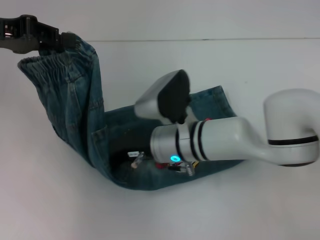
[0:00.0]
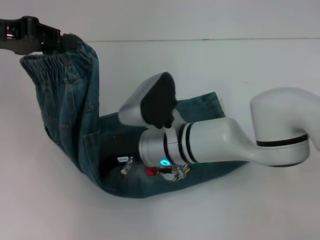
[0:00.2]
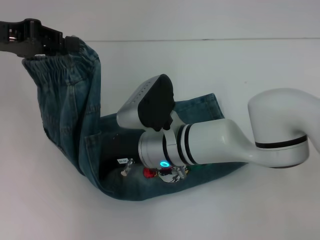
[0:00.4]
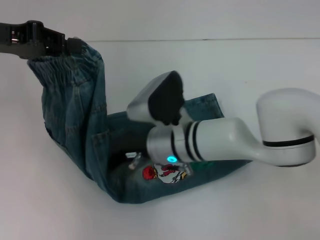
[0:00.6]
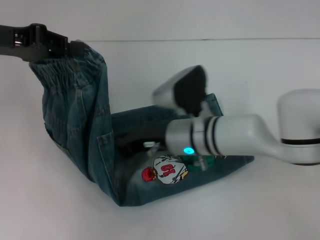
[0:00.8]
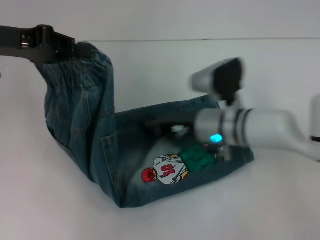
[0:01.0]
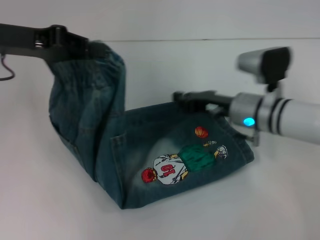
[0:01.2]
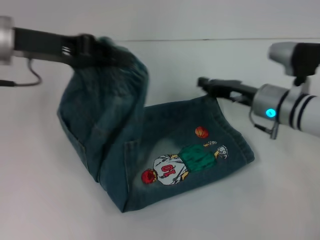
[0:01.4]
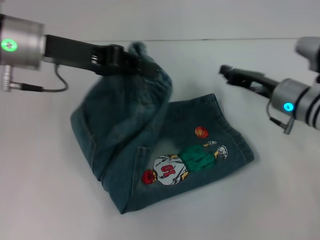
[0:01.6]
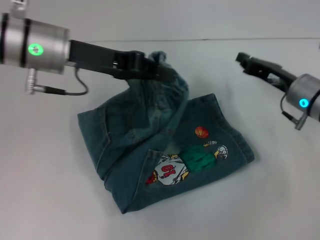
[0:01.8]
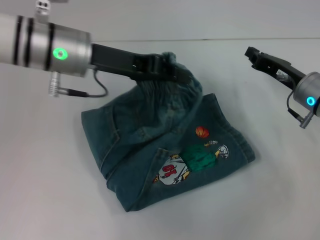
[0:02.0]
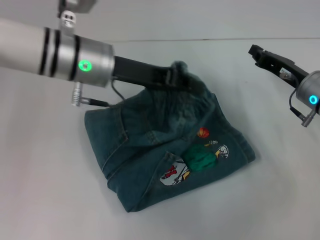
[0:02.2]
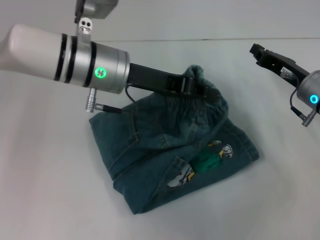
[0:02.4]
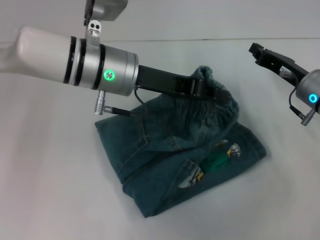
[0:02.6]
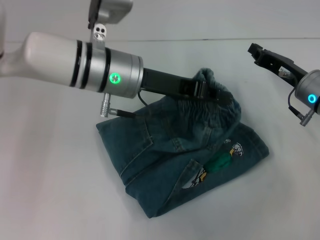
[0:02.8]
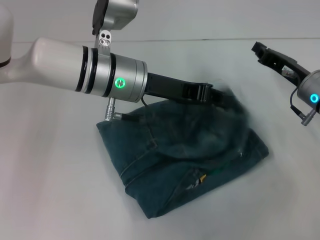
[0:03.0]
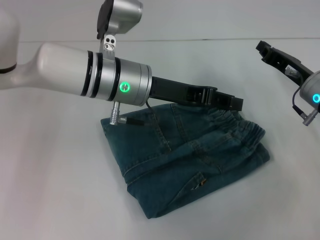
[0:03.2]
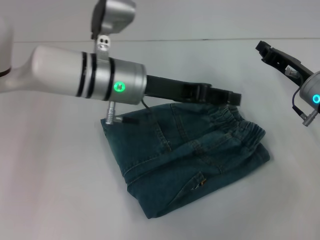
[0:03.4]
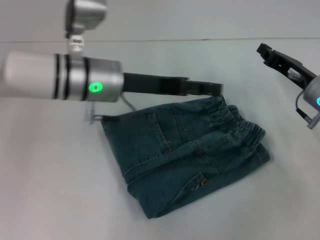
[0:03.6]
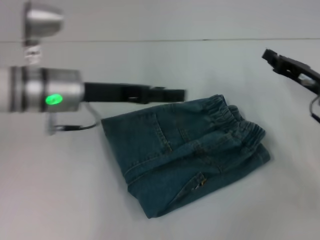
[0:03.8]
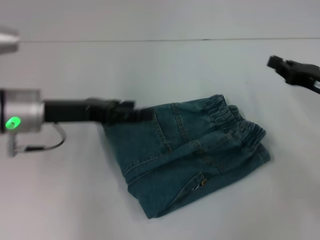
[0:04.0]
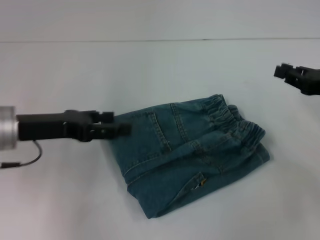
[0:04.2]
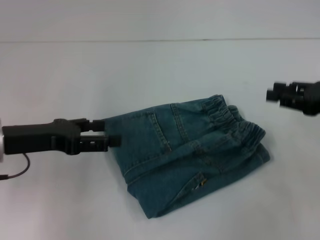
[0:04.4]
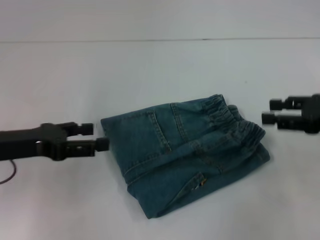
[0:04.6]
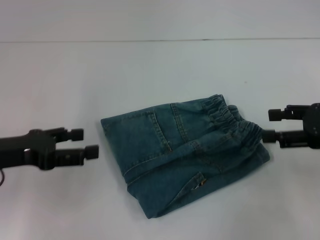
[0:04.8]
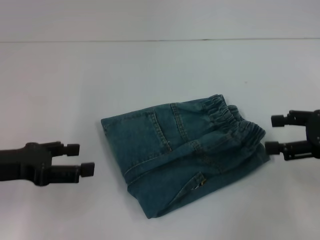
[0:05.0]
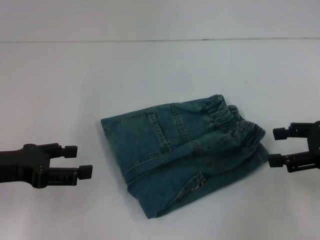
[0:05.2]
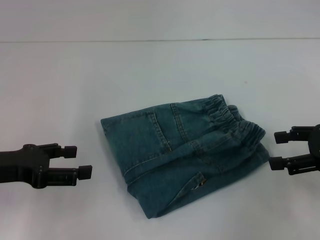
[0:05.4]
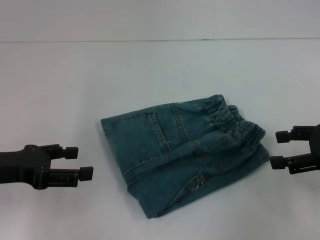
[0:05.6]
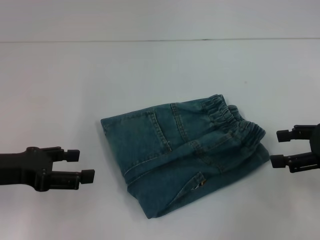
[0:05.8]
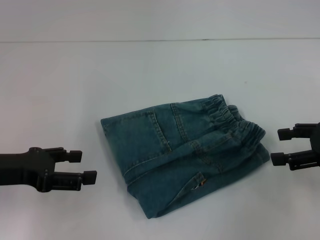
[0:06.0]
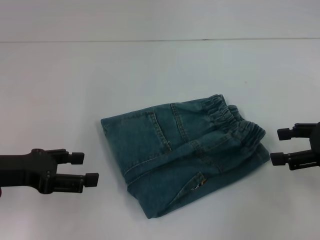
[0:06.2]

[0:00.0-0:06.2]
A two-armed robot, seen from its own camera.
Step, 0:00.4 to 0:03.2: Fold to the right with your left hand.
0:00.0 to 0:01.6: The left gripper is displaced to the right by approximately 10 cm, while the right gripper goes some 20 cm to the right.
0:01.6 to 0:03.2: The left gripper travels to the right and downward by about 15 cm.
0:03.2 to 0:04.6: The right gripper is displaced upward, backward and to the right by roughly 10 cm, and opens up. Meanwhile the left gripper travels to the left and backward by approximately 20 cm, and opens its fingers.
0:04.6 to 0:06.2: The right gripper opens.

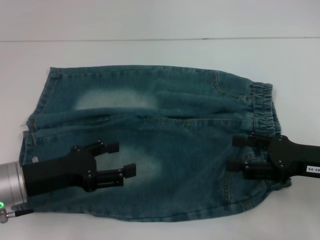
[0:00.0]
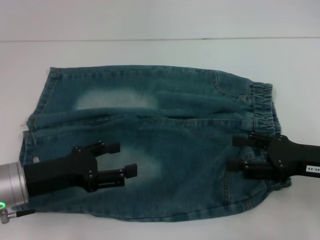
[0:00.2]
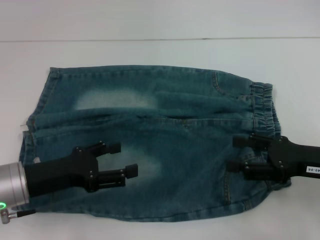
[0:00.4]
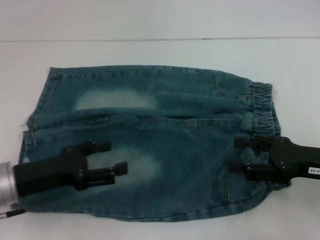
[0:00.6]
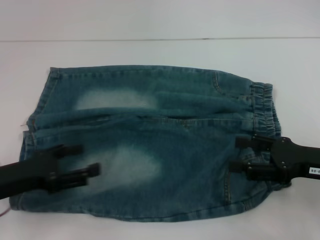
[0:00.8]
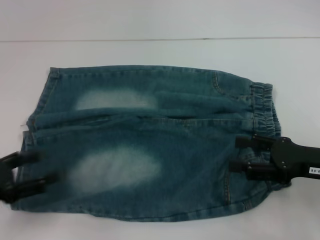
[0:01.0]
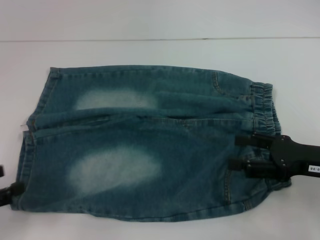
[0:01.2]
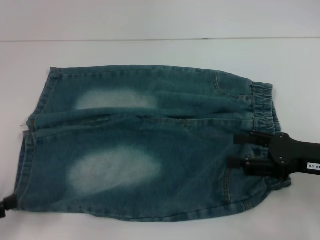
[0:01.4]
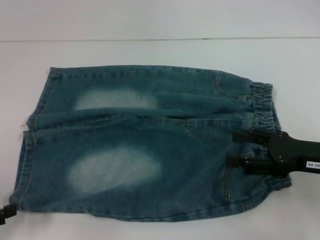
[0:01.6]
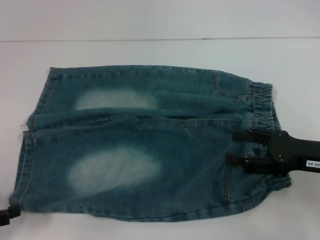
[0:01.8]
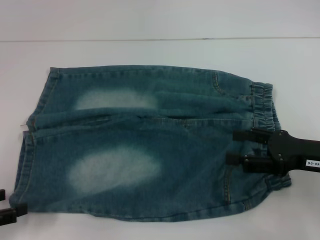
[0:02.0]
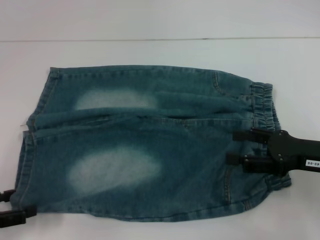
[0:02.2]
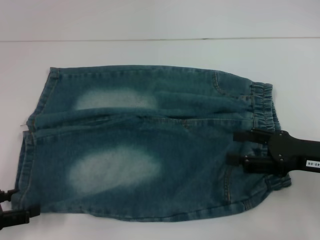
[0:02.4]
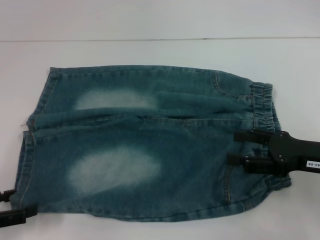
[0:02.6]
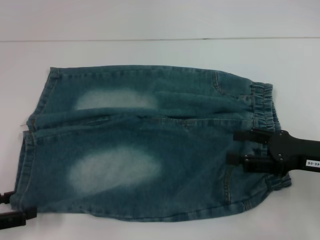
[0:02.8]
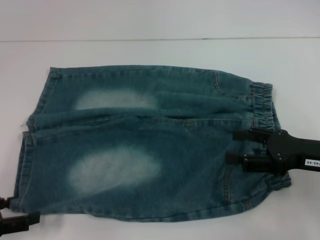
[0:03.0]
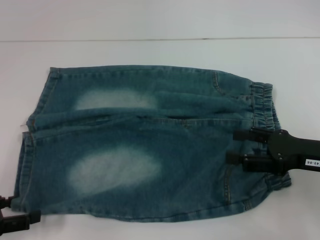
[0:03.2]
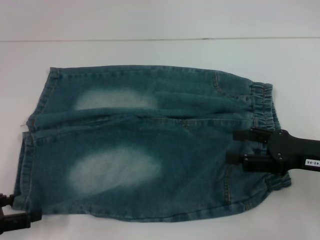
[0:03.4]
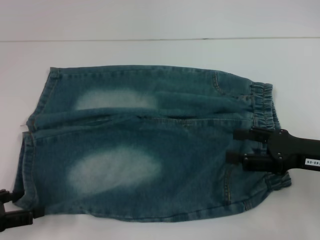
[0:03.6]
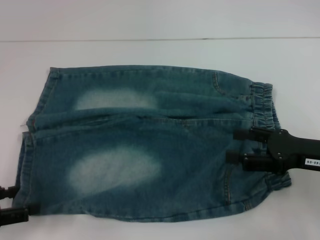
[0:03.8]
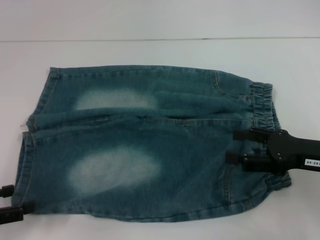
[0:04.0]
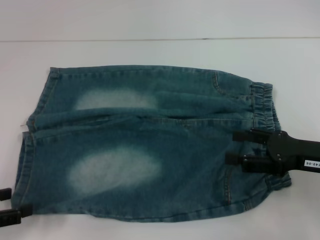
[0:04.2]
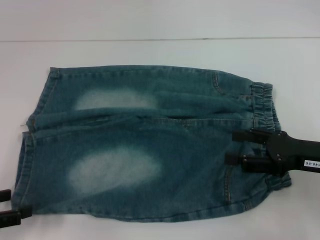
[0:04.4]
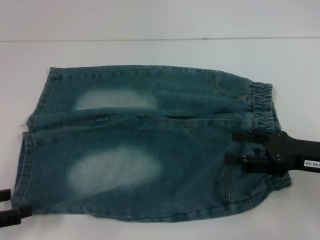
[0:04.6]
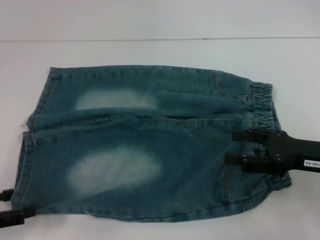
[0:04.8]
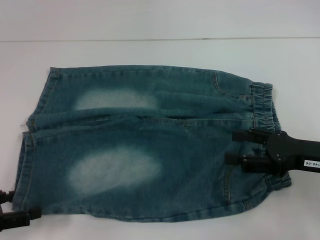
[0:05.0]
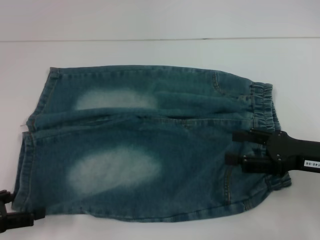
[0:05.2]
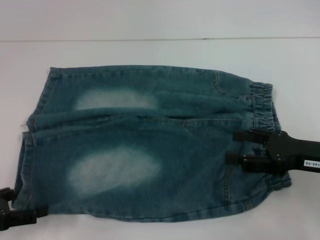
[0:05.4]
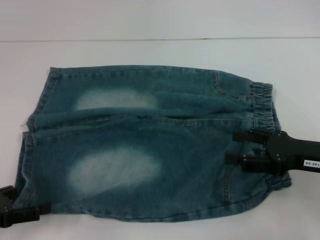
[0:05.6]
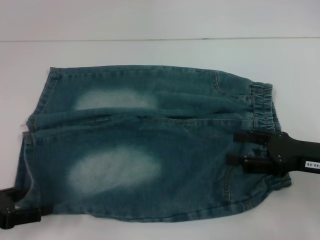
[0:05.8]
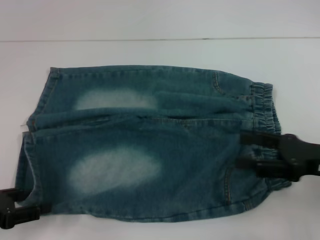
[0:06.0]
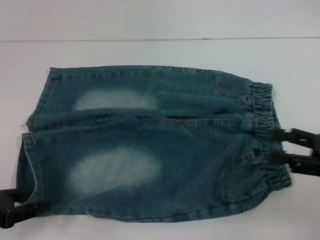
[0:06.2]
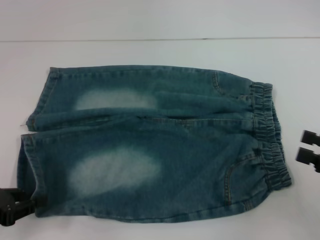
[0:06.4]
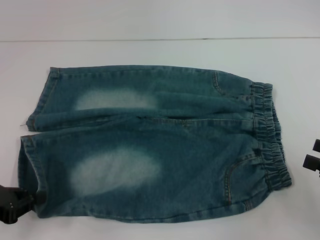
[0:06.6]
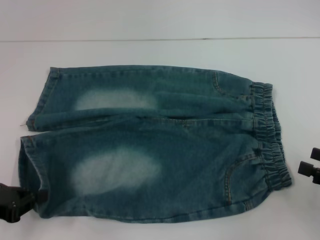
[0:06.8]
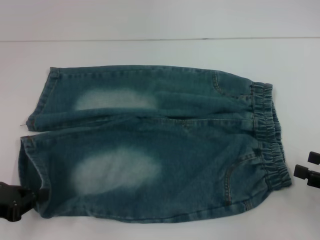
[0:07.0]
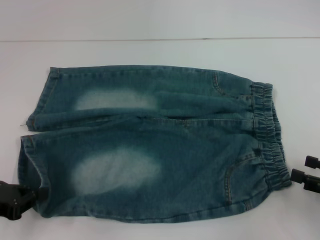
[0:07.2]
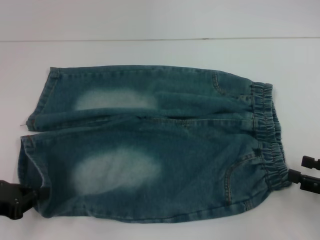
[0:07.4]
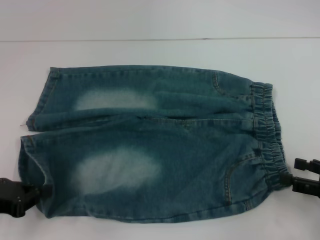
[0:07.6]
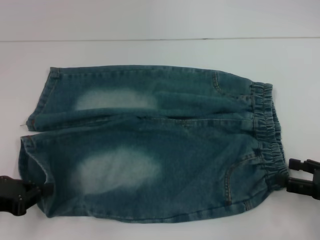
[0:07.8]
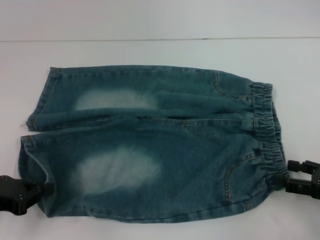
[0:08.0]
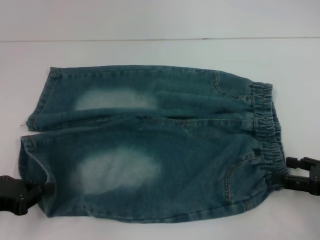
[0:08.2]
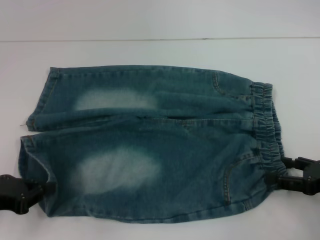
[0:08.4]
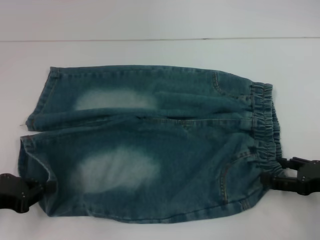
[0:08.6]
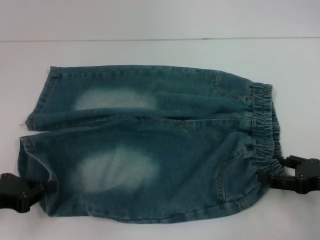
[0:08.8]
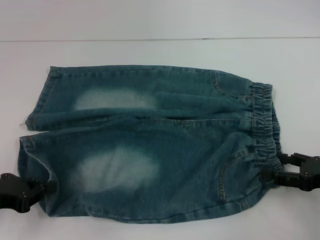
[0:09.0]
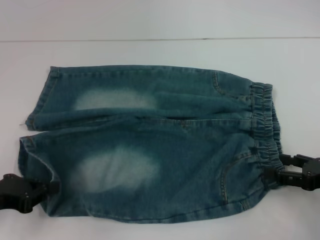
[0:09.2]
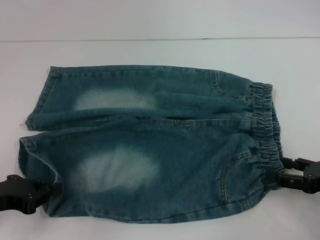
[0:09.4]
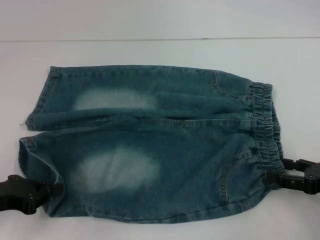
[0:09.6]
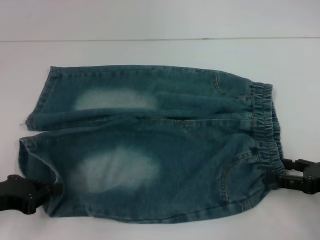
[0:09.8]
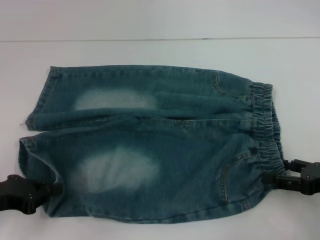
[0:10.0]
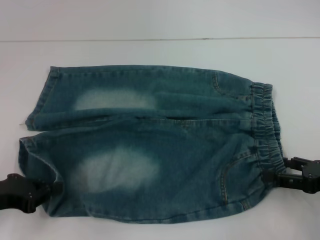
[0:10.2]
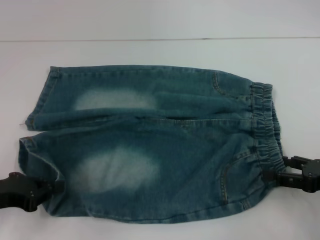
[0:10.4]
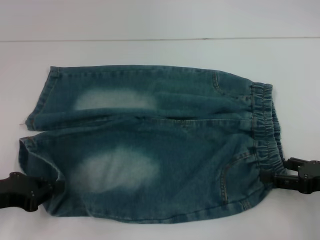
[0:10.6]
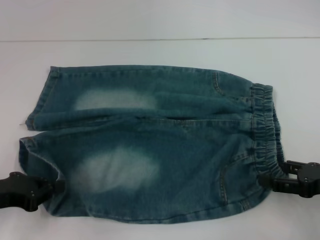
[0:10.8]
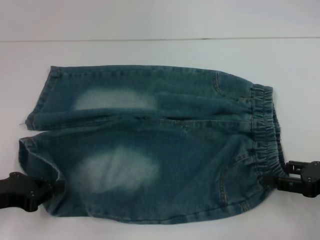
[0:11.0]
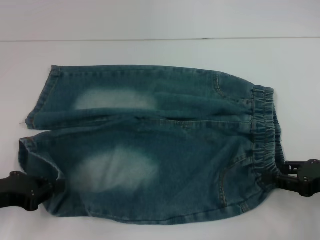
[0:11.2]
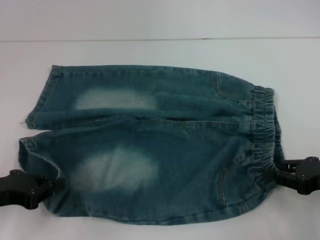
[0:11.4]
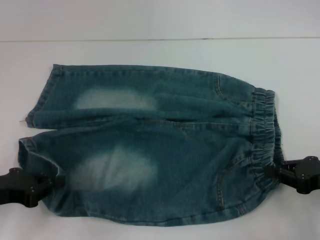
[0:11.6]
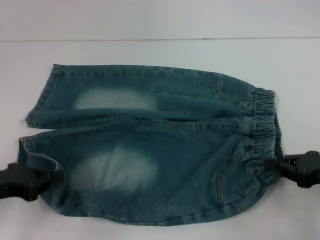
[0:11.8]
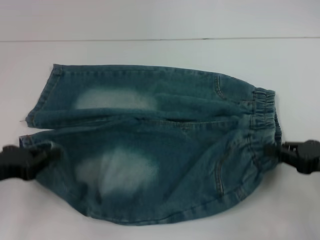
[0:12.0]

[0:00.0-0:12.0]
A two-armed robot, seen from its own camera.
Step, 0:00.0 to 0:06.6: Grab the lower left pant leg with your left hand.
Step, 0:07.0 to 0:11.8: Hold the lower right waistband with your right hand.
0:00.0 to 0:01.6: The left gripper shifts some 15 cm to the left and backward.
0:01.6 to 0:06.0: The grippers make only small movements.
0:06.0 to 0:07.6: The right gripper moves to the right, some 5 cm; the left gripper closes.
0:07.6 to 0:10.4: The grippers make only small movements.
0:10.4 to 0:12.0: The right gripper closes.

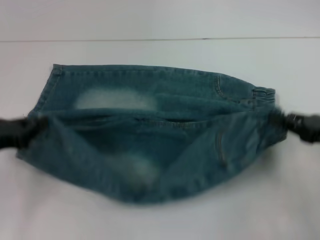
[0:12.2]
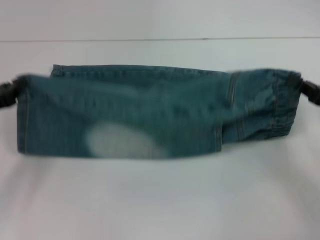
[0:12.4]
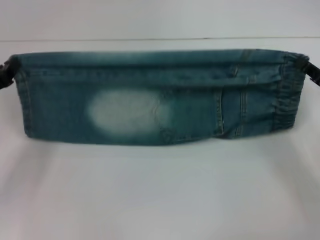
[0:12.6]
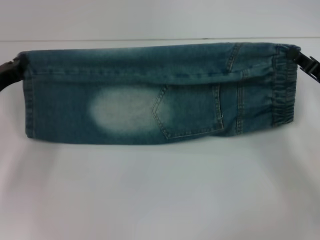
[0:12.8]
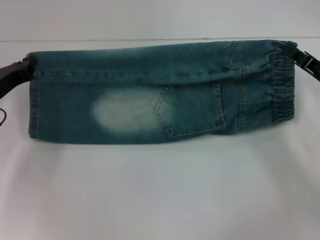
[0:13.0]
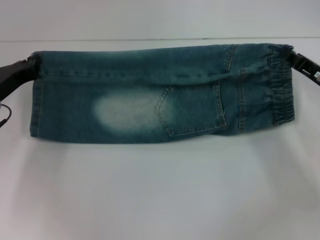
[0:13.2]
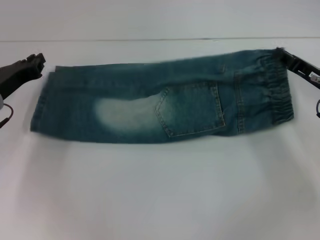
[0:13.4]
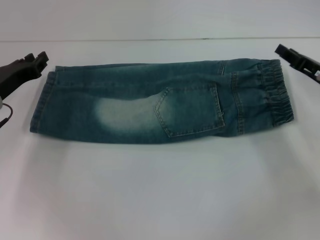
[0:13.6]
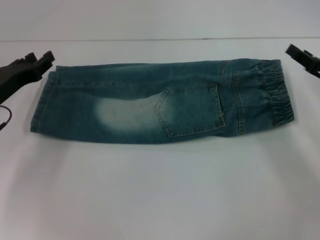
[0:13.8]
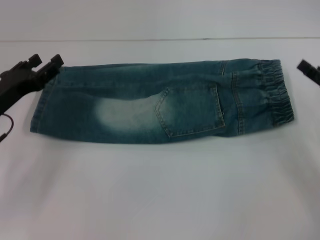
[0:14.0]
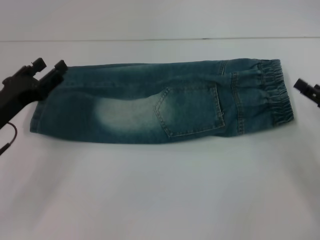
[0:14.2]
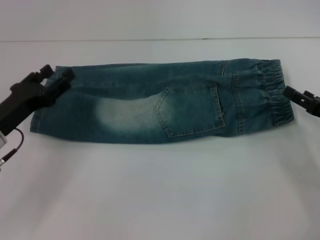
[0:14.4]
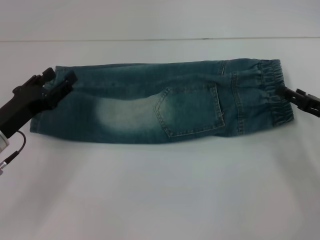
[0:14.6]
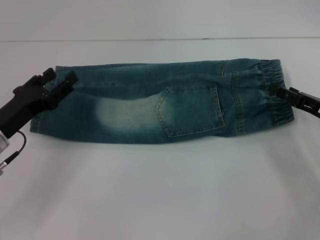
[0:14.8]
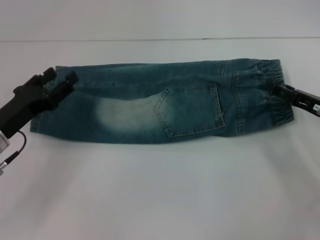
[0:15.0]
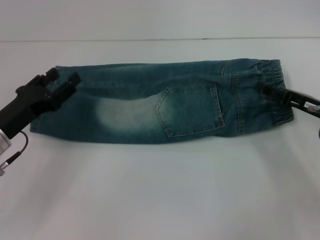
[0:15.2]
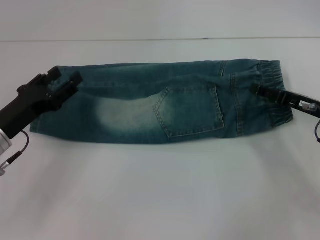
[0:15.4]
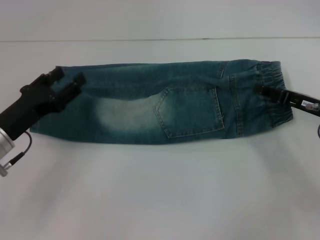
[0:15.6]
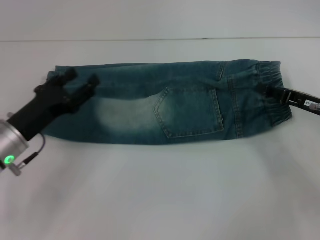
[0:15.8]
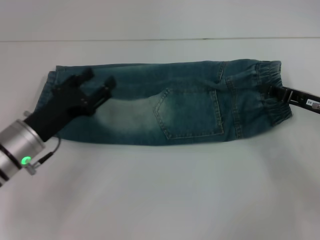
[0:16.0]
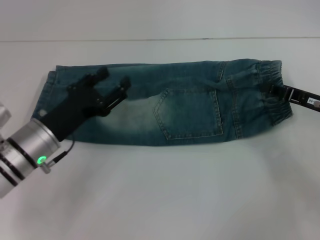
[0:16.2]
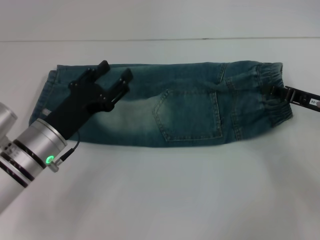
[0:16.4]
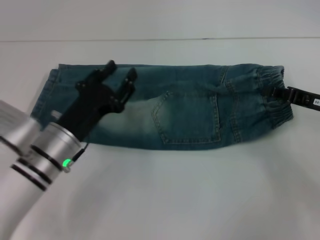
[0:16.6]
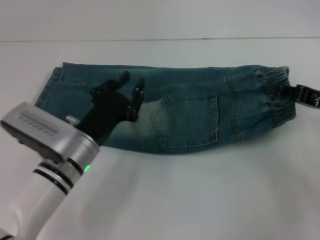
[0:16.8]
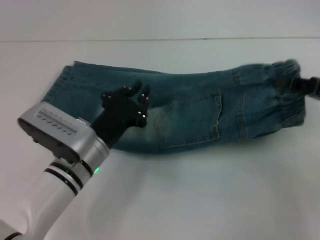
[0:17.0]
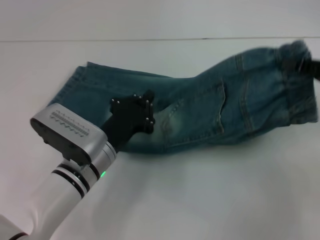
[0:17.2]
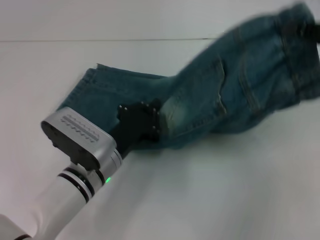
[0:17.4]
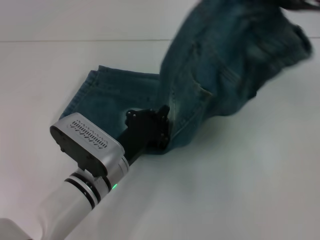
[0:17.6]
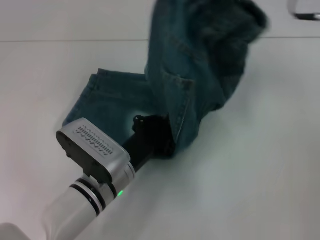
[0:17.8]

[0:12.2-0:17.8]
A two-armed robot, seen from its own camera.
Step, 0:12.2 to 0:13.8: Fold upward with your right hand.
Step, 0:14.0 to 0:16.6: Grab the waistband with your right hand.
0:12.2 to 0:13.6: Both grippers travel together forward, roughly 10 cm.
0:13.6 to 0:15.0: The right gripper opens. The left gripper moves backward, approximately 5 cm, and opens up.
0:15.0 to 0:16.4: The left gripper goes some 10 cm to the right. The right gripper closes up.
0:16.4 to 0:17.8: The left gripper heads to the right, covering approximately 10 cm, and closes up; the right gripper travels upward and to the left by about 25 cm.
